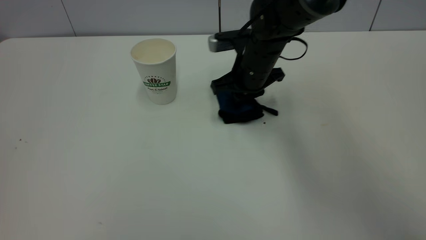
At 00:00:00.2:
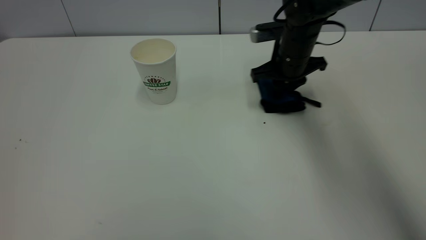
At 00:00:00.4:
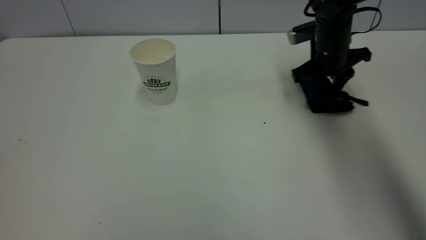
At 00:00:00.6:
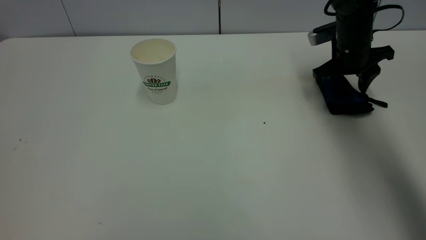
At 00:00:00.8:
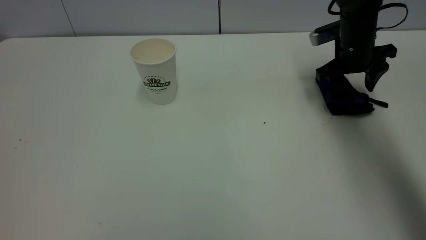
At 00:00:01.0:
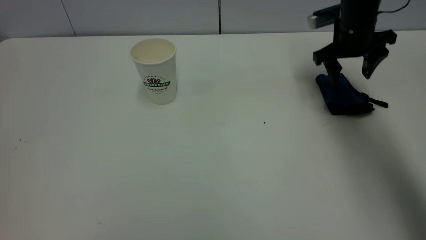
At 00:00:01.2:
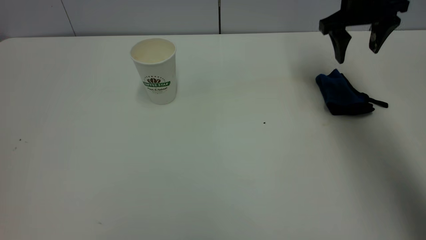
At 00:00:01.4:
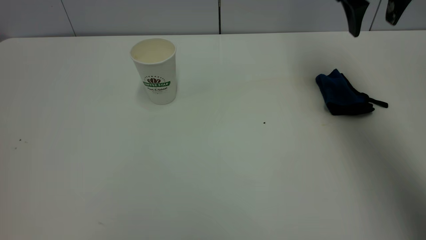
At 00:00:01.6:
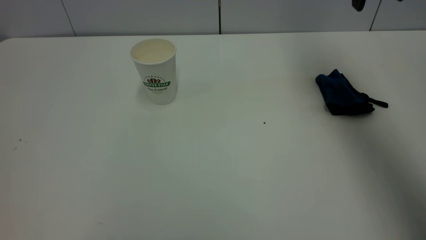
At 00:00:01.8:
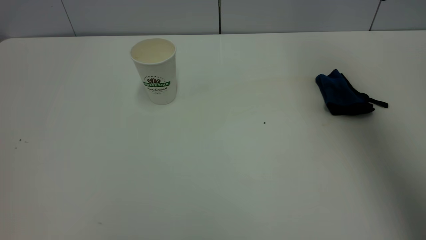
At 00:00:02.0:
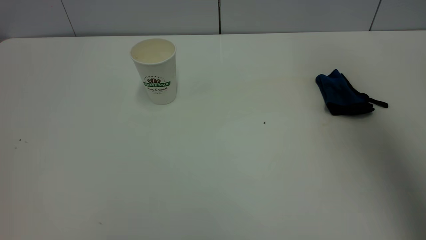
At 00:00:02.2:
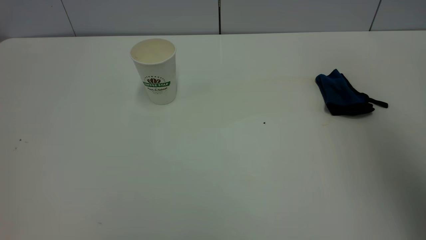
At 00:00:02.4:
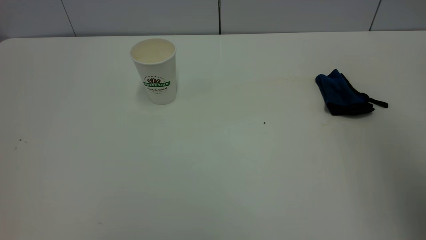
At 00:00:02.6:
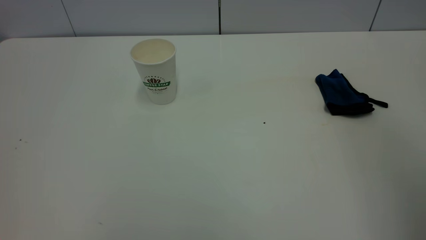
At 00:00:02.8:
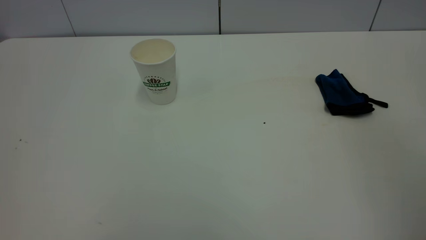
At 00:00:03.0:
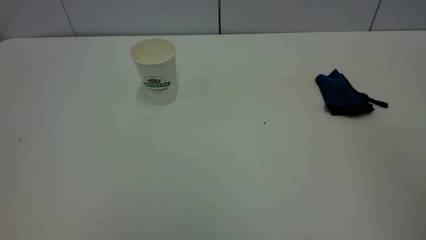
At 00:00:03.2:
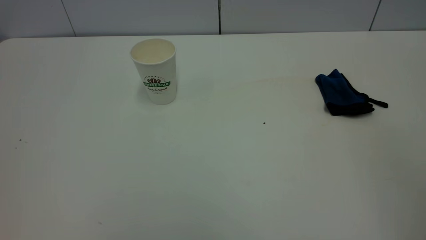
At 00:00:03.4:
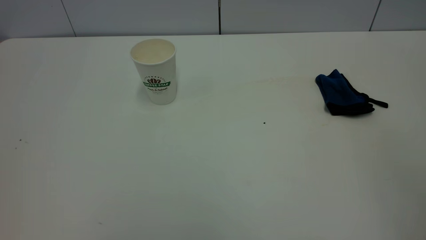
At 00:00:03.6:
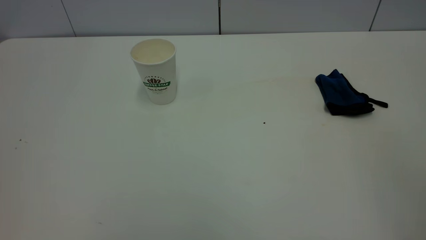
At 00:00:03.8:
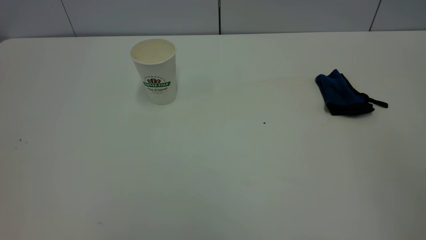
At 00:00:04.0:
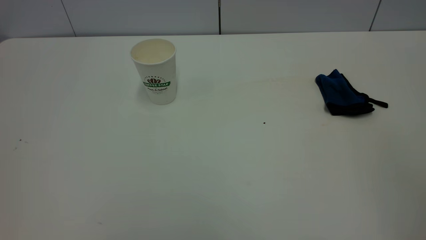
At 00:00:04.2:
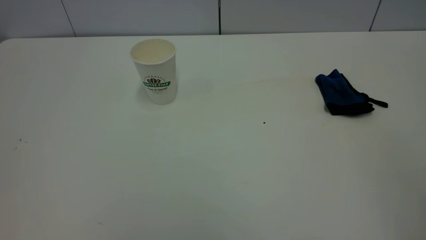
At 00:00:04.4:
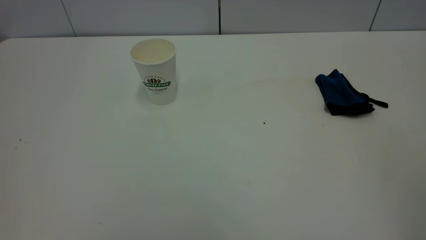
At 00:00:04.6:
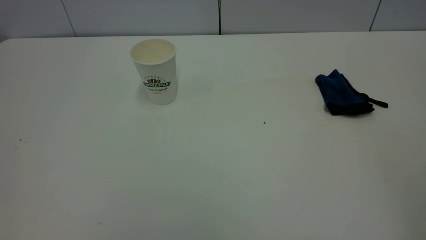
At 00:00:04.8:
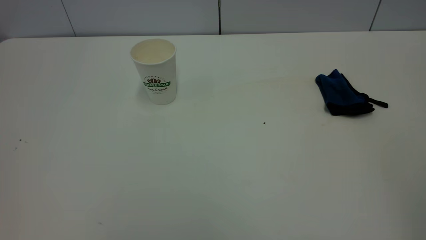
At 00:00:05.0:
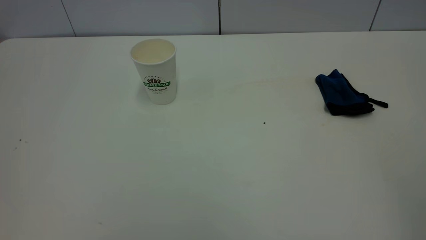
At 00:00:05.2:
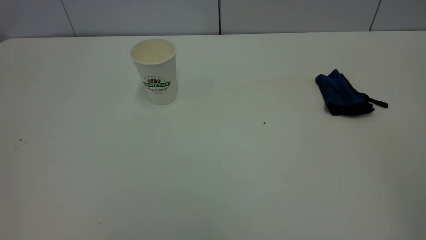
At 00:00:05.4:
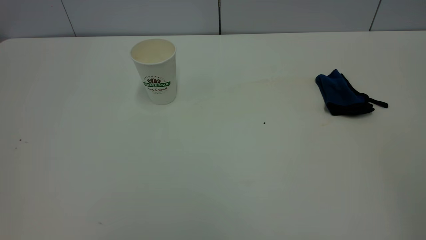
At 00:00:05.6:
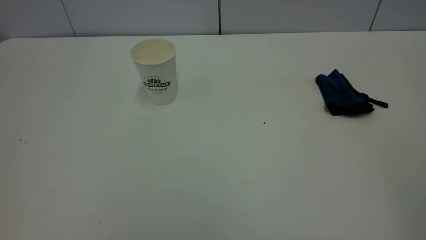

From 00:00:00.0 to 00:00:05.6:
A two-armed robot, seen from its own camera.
Task of the whole recording: the left gripper pick up the fallen cup and place it upright, the right gripper grasp the blue rag and wipe the tea stain on the table, the right gripper put the blue rag back in its original position.
From 00:00:00.0 to 00:00:01.4: The right gripper is displaced upward and to the right by roughly 25 cm, and opens its fingers.
From 00:00:01.4 to 00:00:02.8: The right gripper shifts approximately 35 cm backward.
